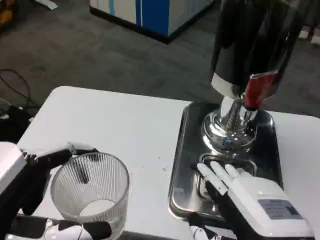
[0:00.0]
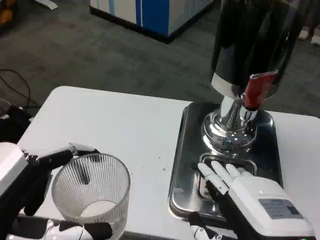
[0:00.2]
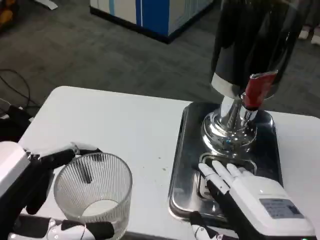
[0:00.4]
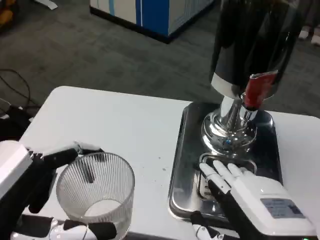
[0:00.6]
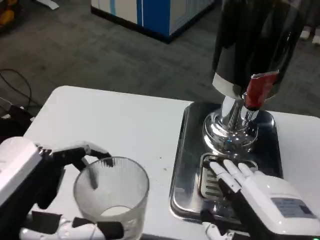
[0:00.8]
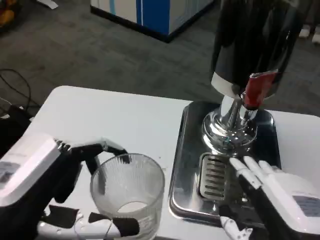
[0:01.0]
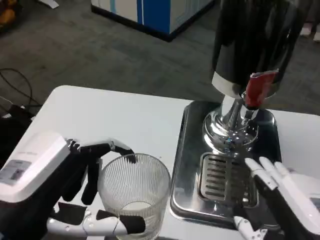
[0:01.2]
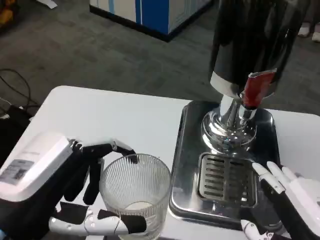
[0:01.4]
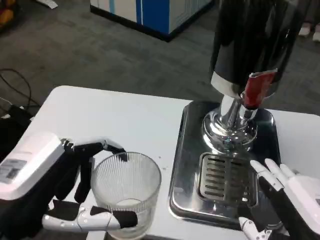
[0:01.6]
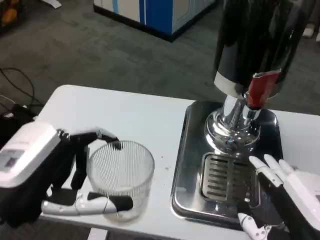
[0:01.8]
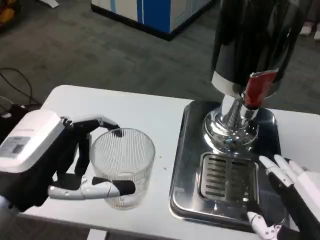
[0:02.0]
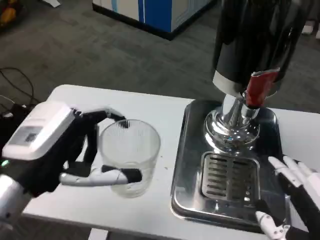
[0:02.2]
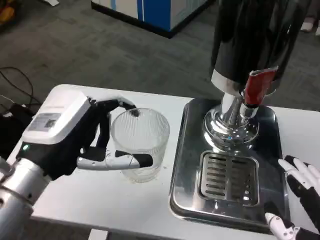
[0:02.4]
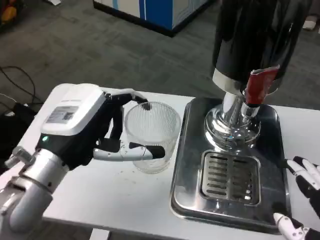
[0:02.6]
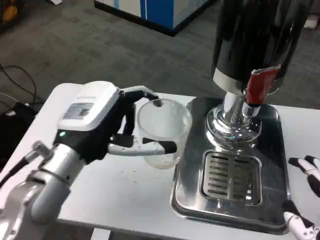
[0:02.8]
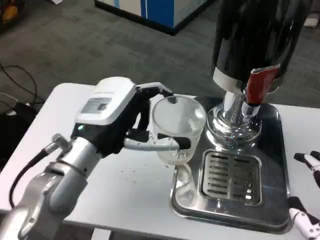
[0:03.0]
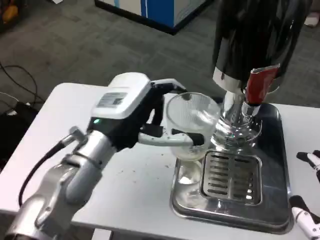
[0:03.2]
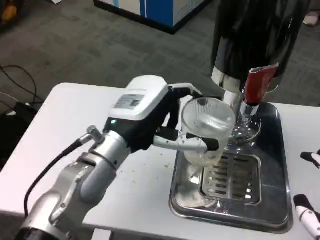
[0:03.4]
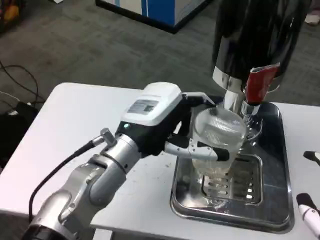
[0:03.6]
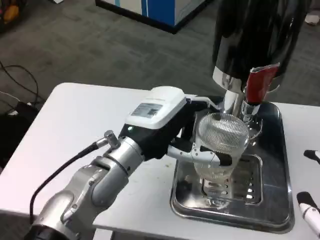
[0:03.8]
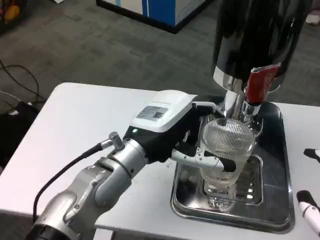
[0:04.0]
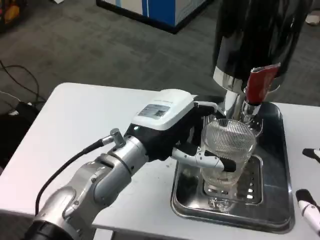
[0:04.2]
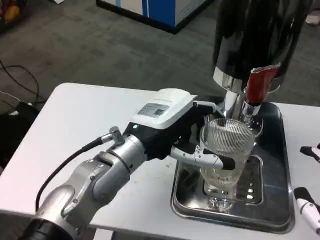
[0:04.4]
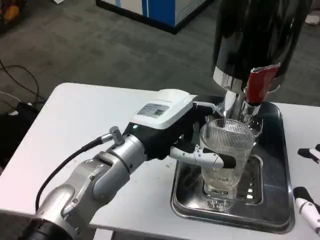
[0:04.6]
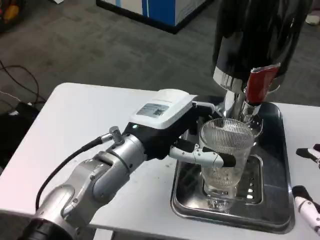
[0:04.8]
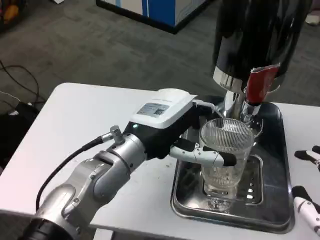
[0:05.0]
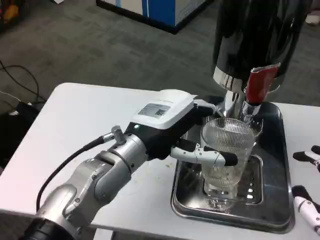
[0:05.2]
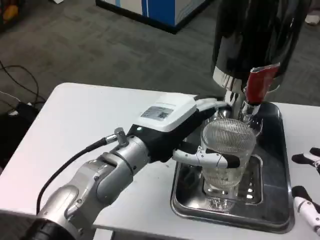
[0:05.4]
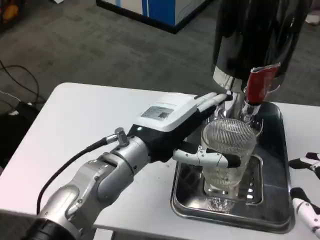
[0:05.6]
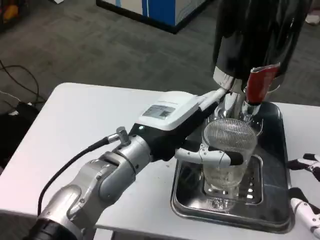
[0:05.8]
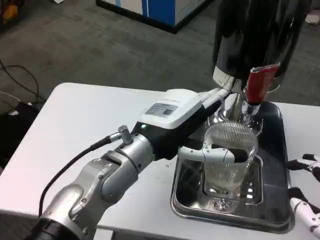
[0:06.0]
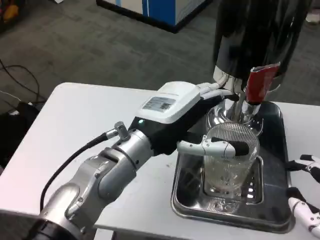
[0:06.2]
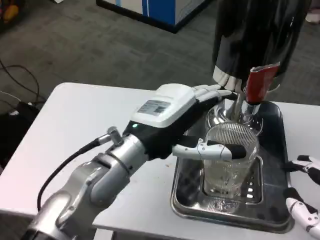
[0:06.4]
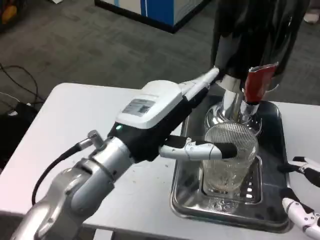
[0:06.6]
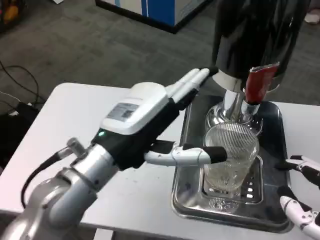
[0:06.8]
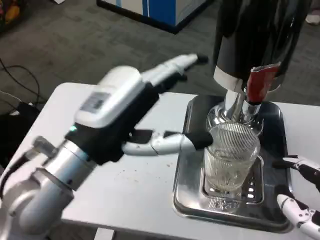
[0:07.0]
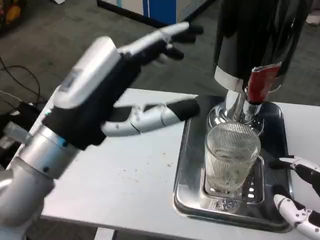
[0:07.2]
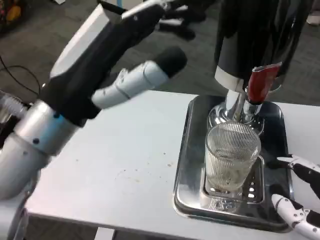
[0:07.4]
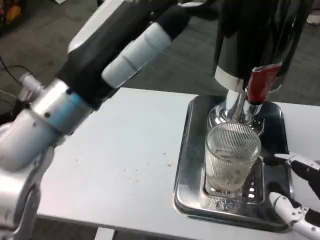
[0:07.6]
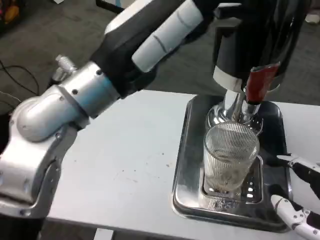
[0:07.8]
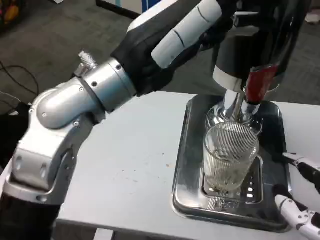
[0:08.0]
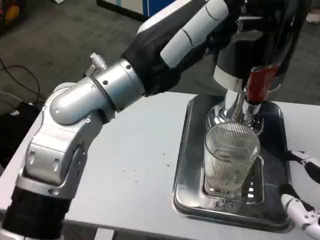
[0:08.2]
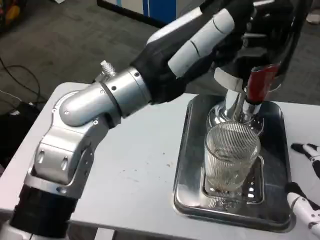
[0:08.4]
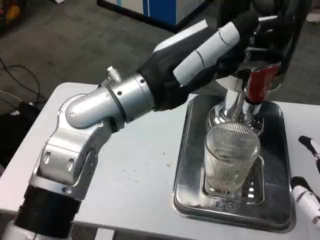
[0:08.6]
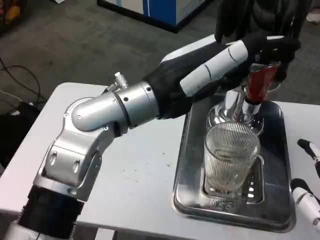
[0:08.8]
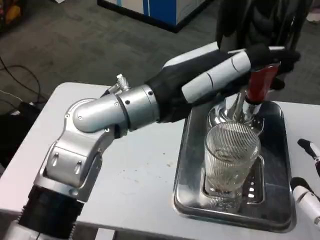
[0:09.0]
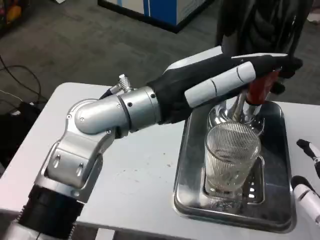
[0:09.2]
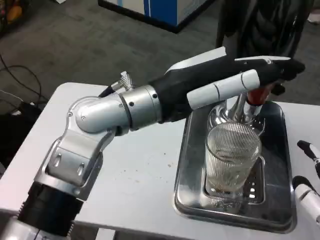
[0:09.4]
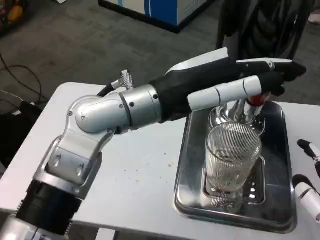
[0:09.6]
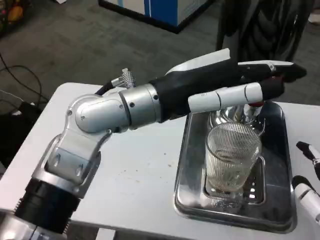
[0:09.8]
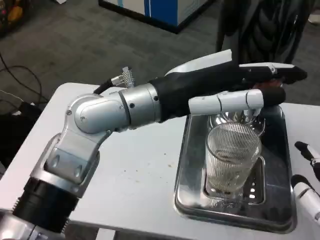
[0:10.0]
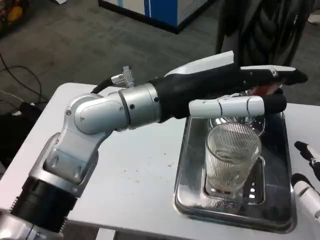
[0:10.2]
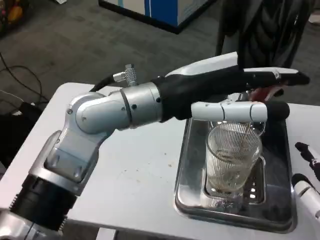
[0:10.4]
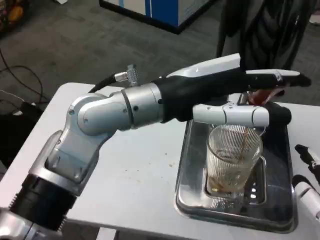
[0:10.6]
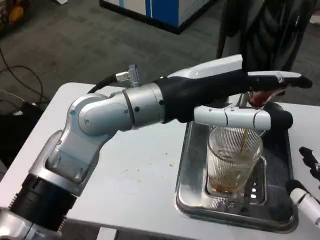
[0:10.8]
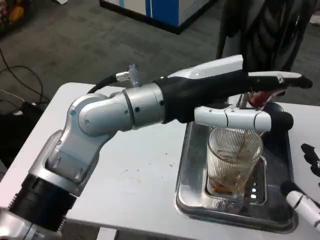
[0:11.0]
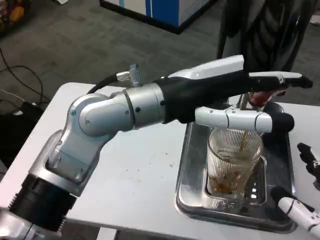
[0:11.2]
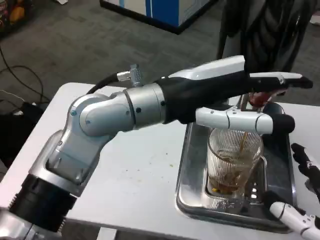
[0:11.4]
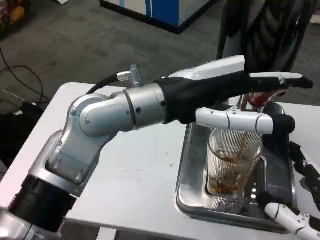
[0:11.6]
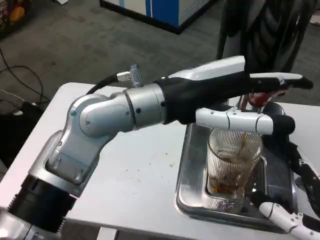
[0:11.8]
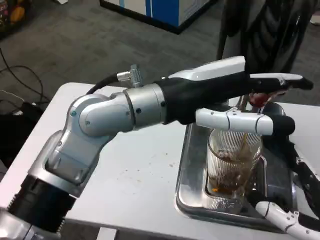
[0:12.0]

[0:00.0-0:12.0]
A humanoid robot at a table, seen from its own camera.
Task of the whole recording: Grasp the cup under the faucet to collect the drink, then remove the cup.
0:01.6 to 0:03.0: The left hand goes some 15 cm forward and to the right.
0:03.0 to 0:04.4: The left hand ends up approximately 5 cm from where it was.
0:04.4 to 0:06.0: The hands make only small movements.
0:06.0 to 0:07.6: The left hand travels upward, to the left and backward by approximately 15 cm.
0:07.6 to 0:09.0: The left hand shifts roughly 10 cm forward and to the right.
0:10.4 to 0:12.0: The right hand shifts by roughly 5 cm.

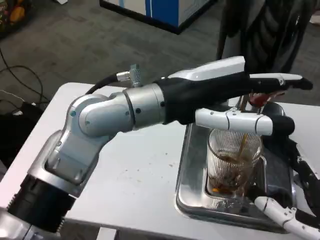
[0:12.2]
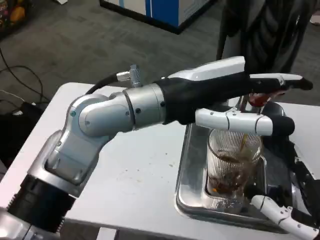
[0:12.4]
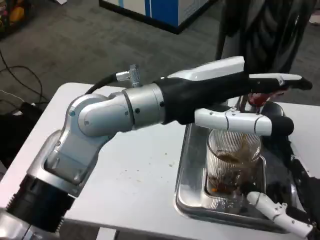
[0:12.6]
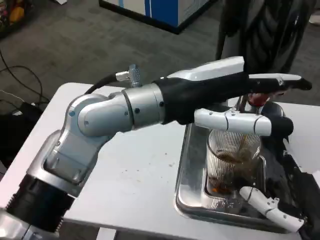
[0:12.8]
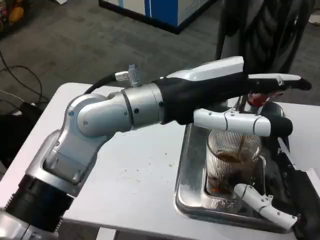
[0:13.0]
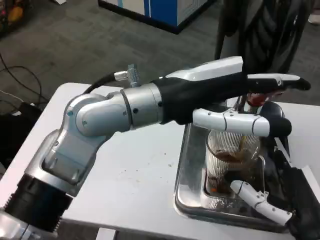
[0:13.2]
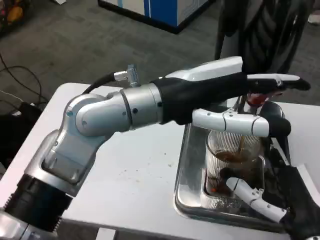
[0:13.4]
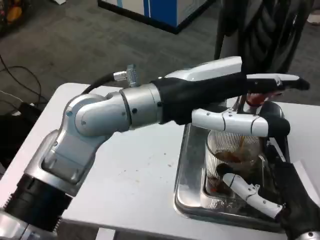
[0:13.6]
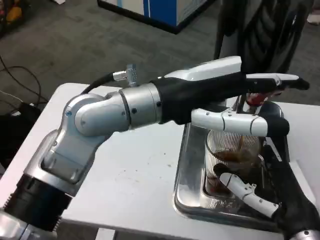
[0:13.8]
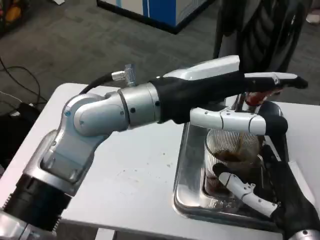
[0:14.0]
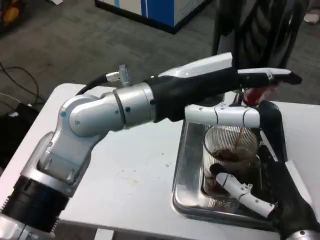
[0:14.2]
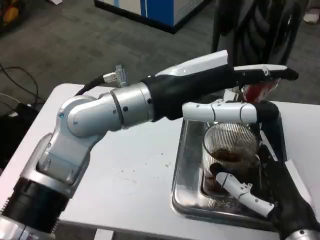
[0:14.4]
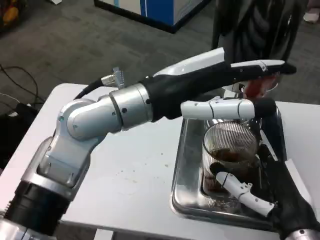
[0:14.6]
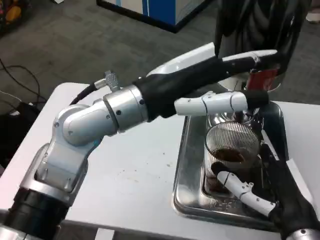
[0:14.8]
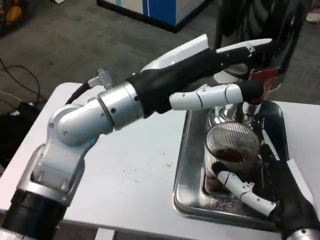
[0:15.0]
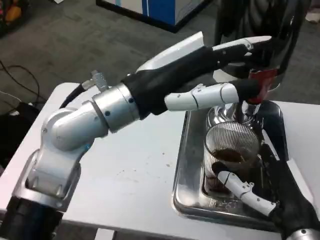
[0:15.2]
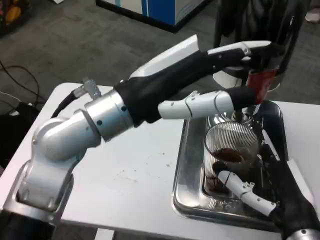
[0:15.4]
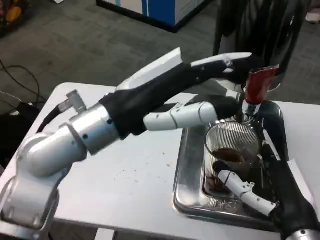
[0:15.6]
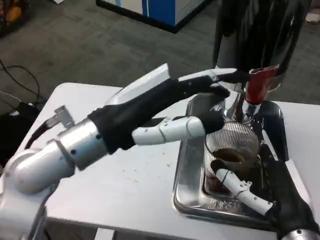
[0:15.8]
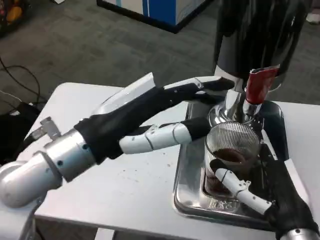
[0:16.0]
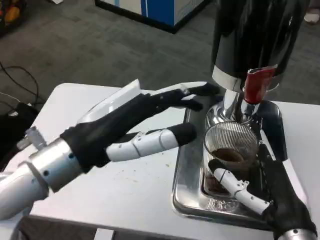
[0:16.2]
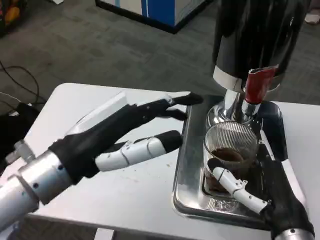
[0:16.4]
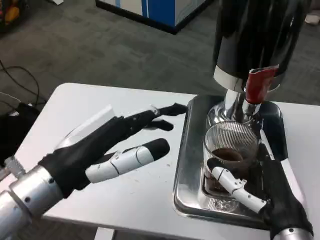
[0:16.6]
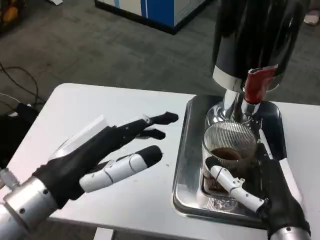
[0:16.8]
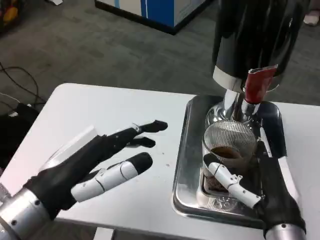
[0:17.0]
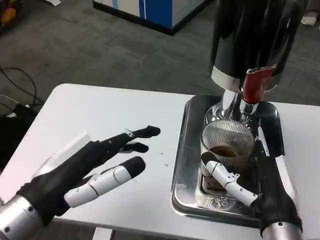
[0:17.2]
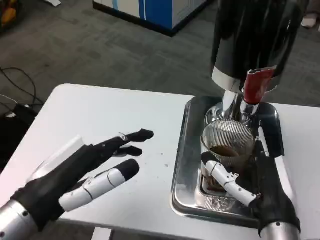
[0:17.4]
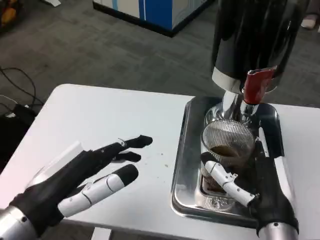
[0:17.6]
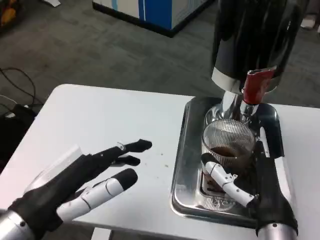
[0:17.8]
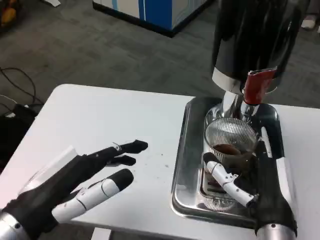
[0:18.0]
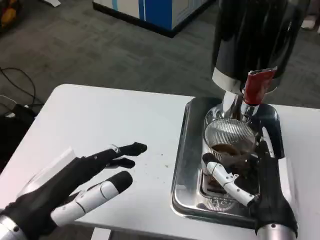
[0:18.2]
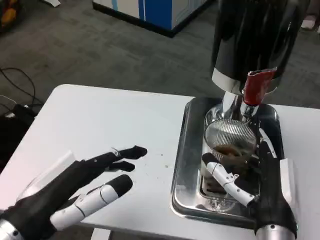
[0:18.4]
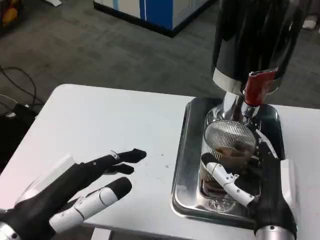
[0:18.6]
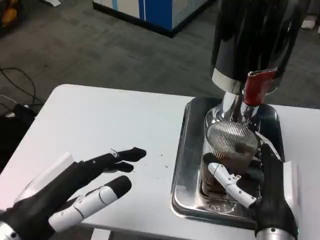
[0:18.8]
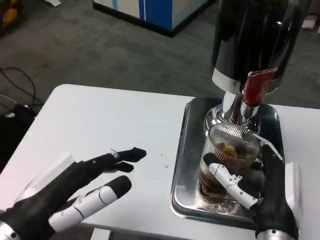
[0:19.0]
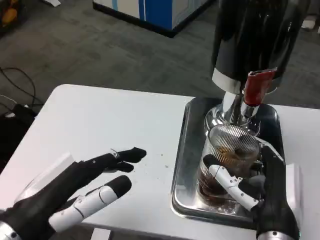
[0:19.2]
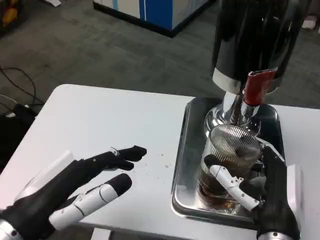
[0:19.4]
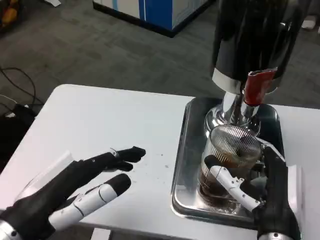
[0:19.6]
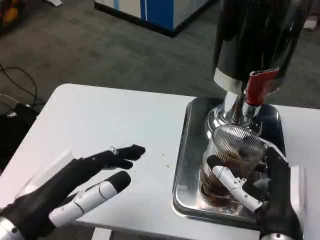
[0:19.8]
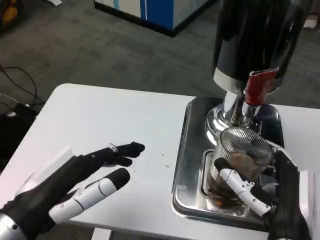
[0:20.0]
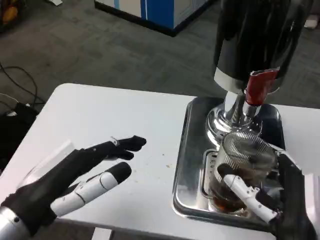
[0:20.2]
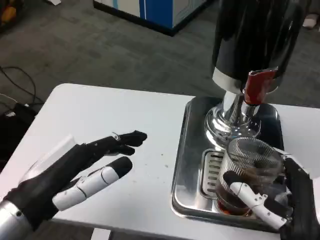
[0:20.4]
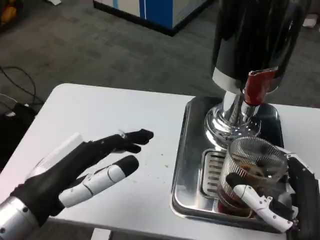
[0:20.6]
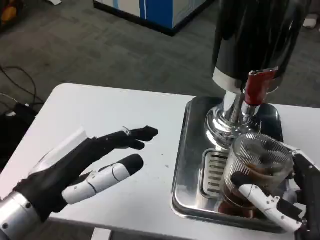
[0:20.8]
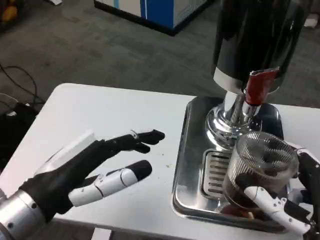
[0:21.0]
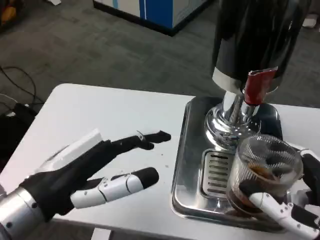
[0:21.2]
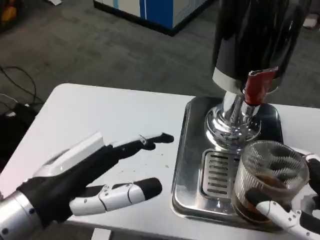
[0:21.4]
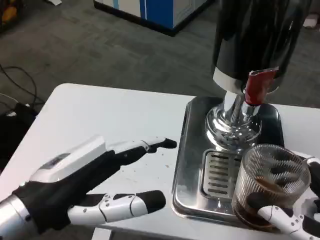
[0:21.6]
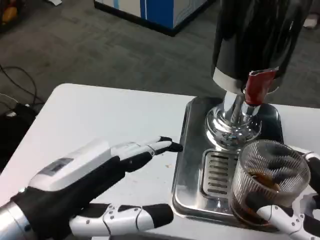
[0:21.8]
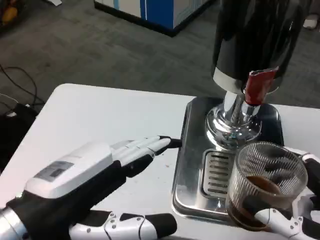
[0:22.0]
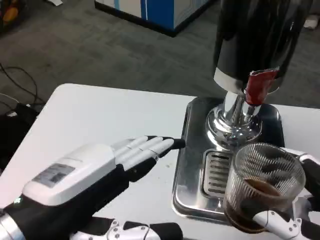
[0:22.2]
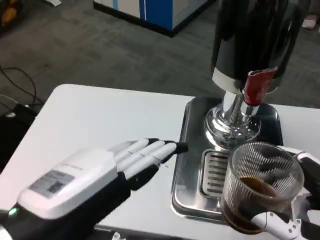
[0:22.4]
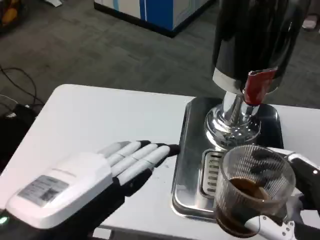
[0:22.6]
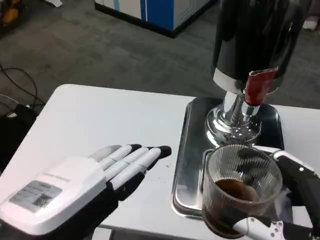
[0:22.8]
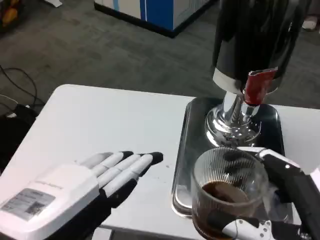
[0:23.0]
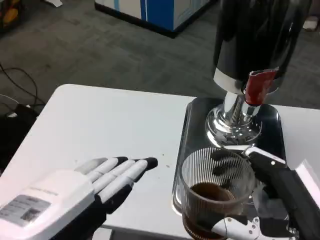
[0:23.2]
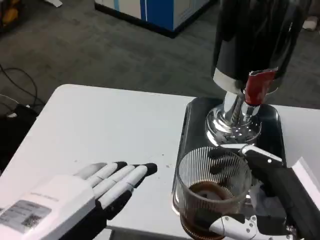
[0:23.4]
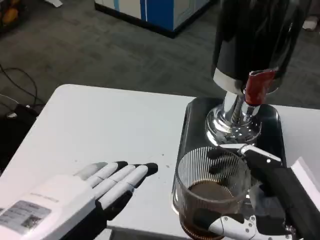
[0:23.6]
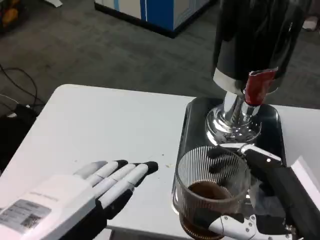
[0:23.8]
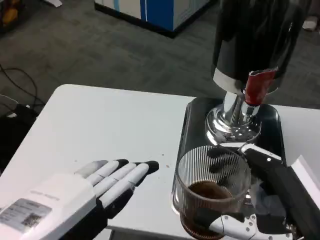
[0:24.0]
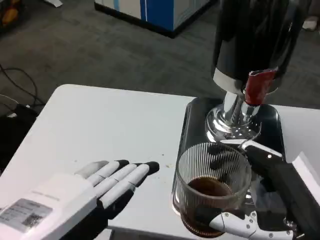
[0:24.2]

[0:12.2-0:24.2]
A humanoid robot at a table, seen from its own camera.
Task of the whole recording: Grasp the cup under the faucet to collect the drink, then remove the cup.
0:12.2 to 0:13.8: The right hand moves about 5 cm.
0:15.2 to 0:16.6: The left hand is displaced to the left, downward and backward by some 15 cm.
0:16.6 to 0:18.2: The left hand ends up approximately 5 cm from where it was.
0:18.2 to 0:19.8: The hands move only a little.
0:19.8 to 0:21.2: The right hand moves to the right and backward, about 10 cm.
0:21.2 to 0:22.6: The left hand shifts about 10 cm backward.
